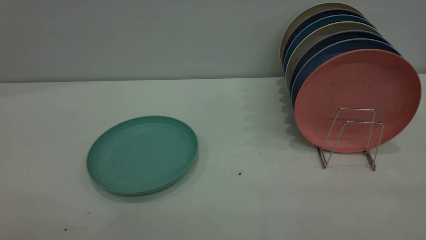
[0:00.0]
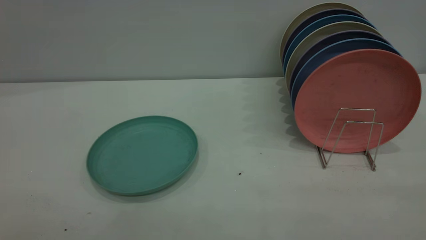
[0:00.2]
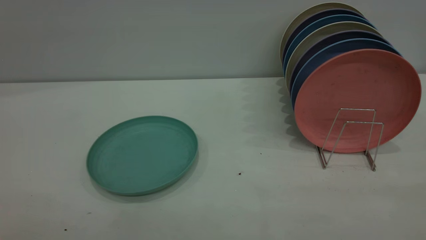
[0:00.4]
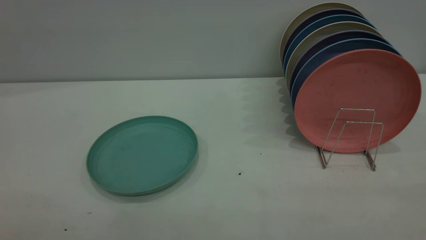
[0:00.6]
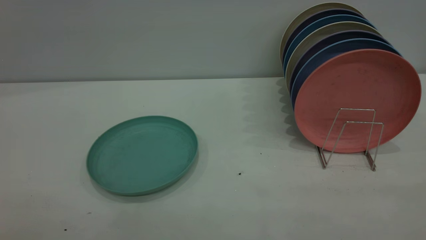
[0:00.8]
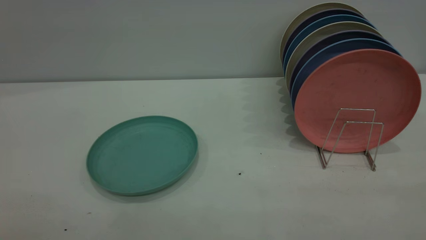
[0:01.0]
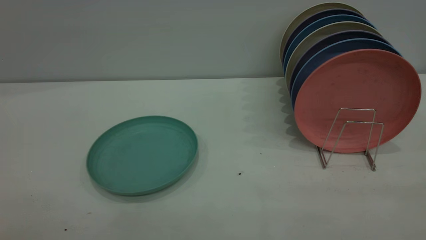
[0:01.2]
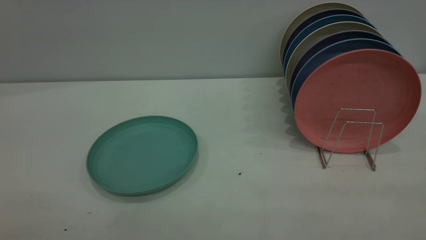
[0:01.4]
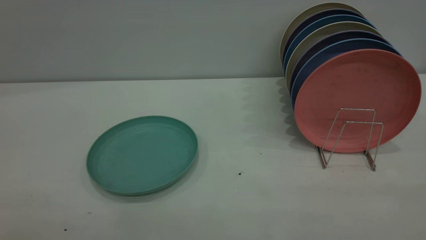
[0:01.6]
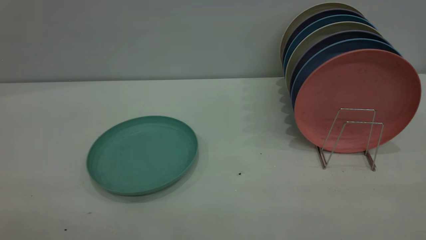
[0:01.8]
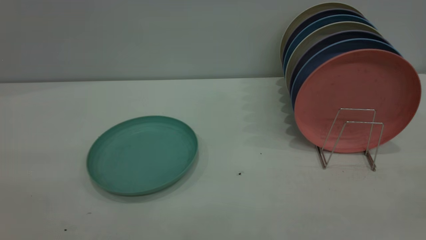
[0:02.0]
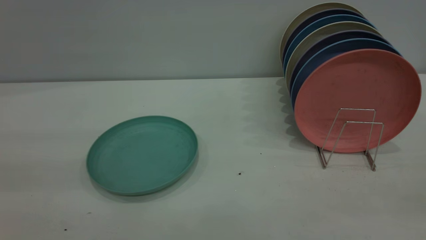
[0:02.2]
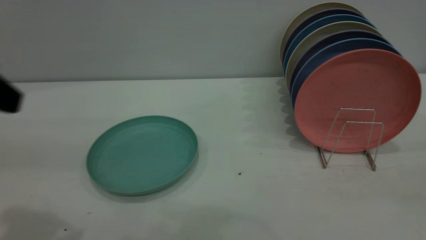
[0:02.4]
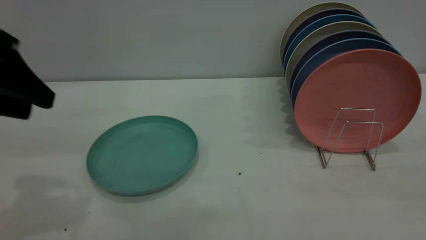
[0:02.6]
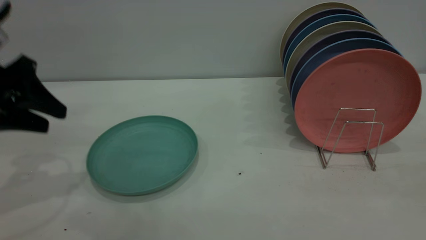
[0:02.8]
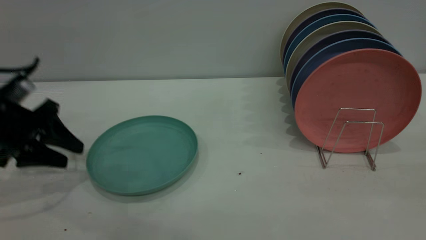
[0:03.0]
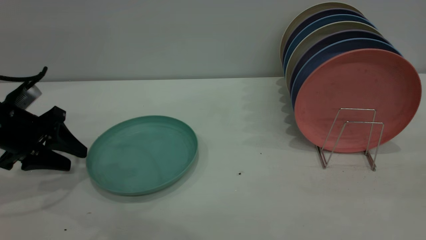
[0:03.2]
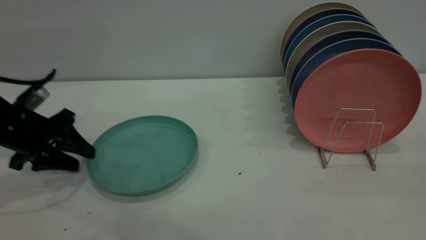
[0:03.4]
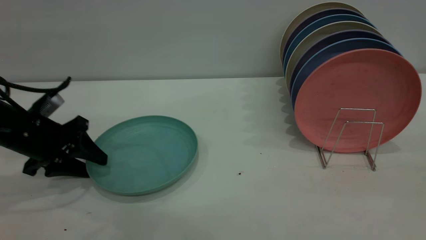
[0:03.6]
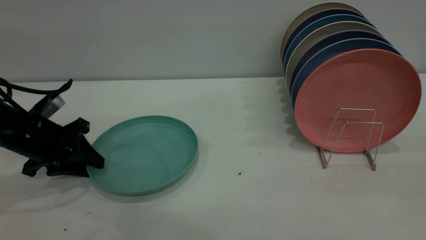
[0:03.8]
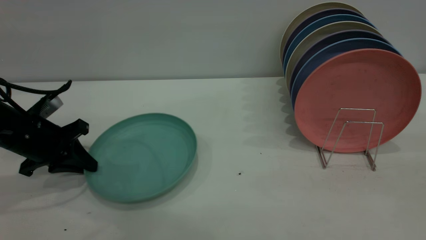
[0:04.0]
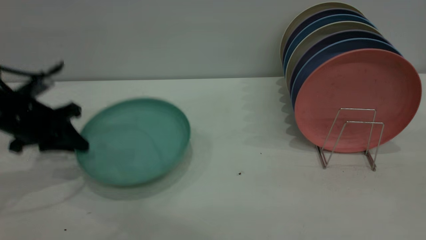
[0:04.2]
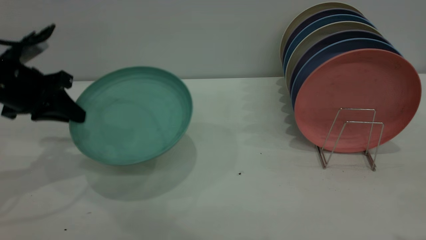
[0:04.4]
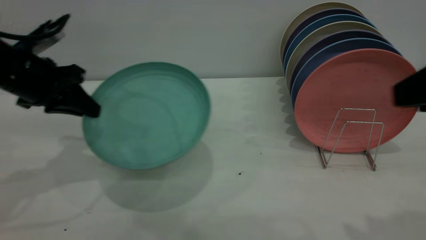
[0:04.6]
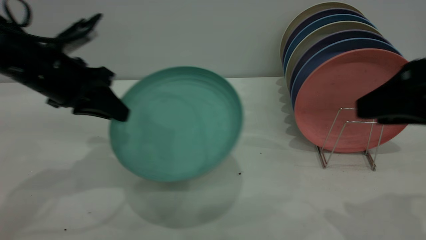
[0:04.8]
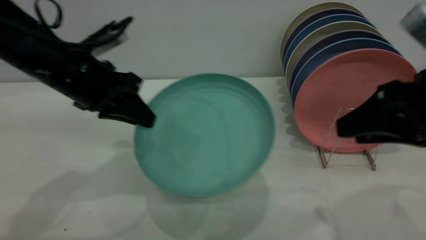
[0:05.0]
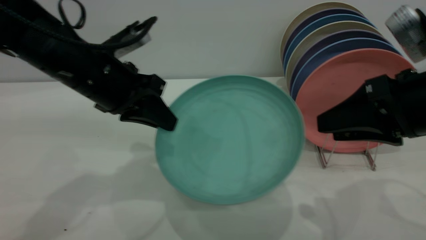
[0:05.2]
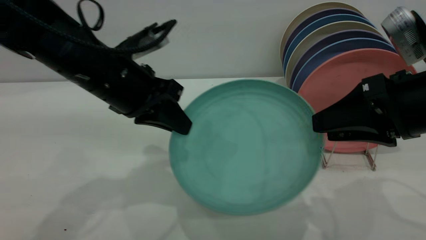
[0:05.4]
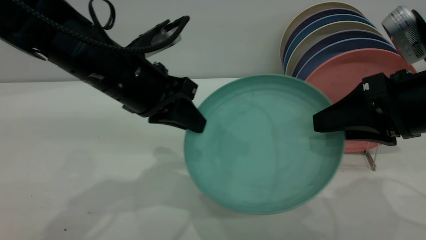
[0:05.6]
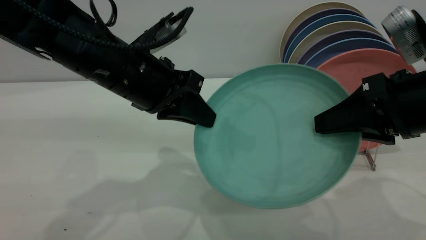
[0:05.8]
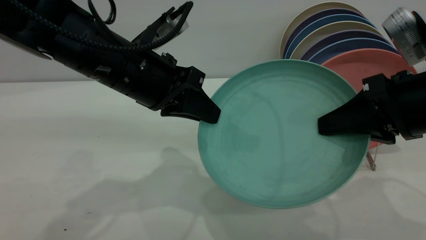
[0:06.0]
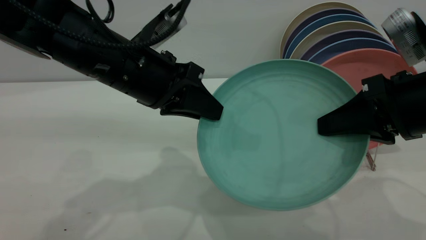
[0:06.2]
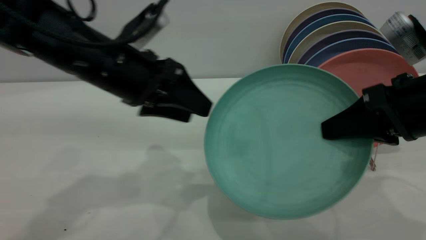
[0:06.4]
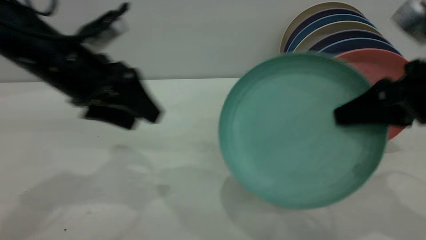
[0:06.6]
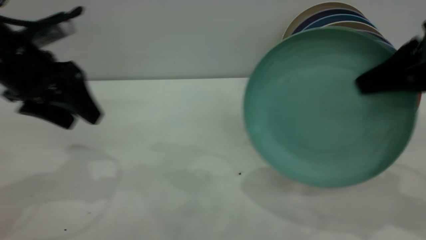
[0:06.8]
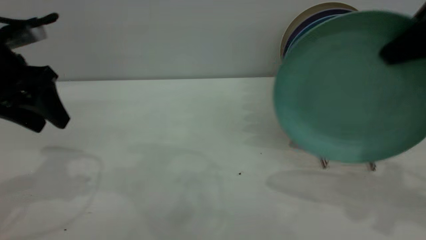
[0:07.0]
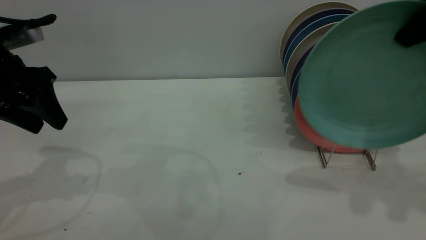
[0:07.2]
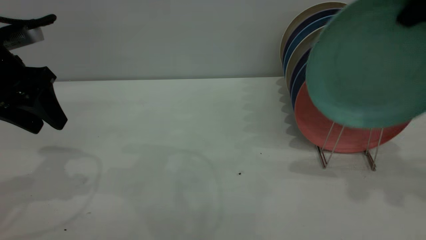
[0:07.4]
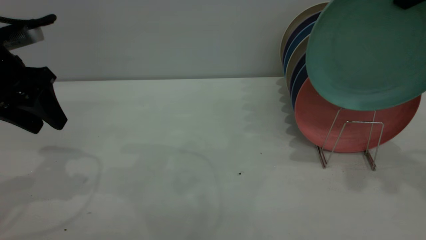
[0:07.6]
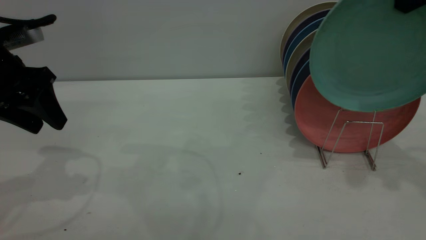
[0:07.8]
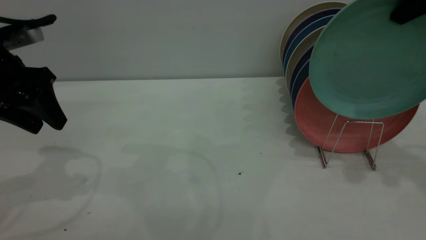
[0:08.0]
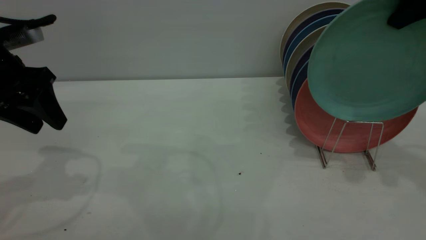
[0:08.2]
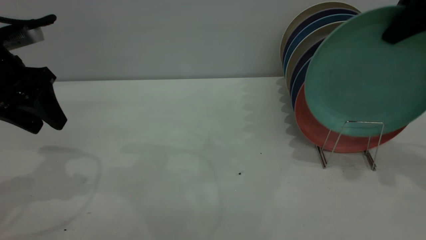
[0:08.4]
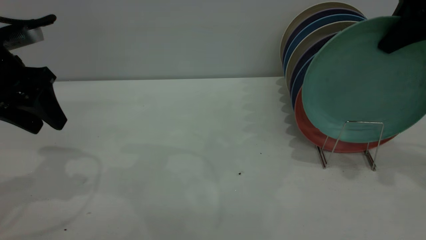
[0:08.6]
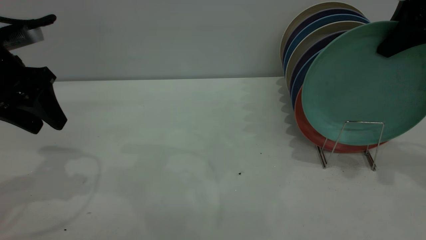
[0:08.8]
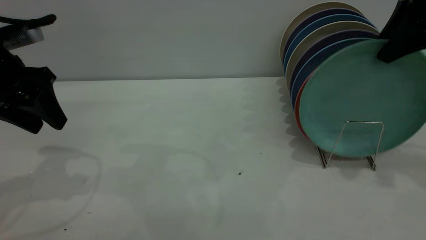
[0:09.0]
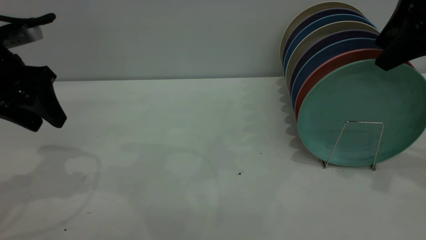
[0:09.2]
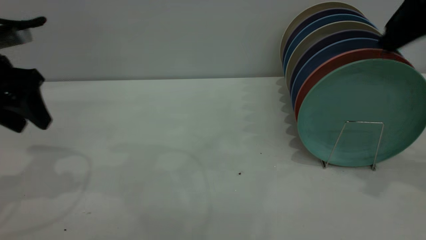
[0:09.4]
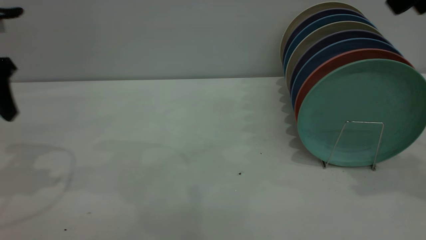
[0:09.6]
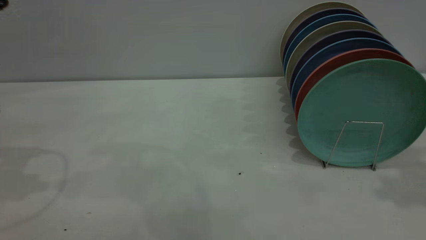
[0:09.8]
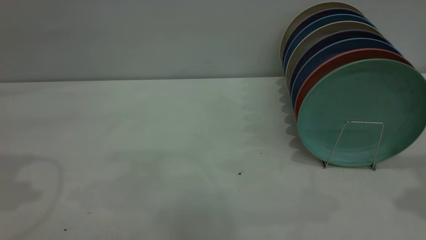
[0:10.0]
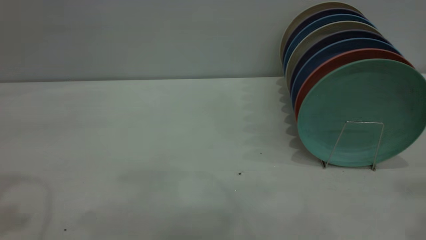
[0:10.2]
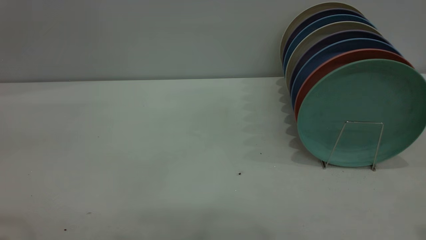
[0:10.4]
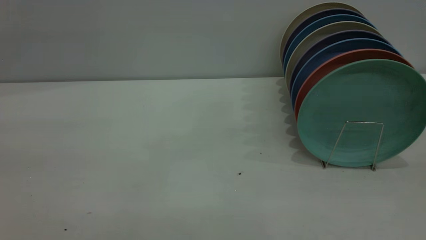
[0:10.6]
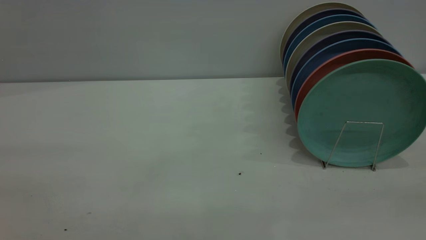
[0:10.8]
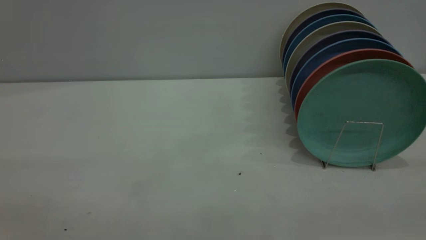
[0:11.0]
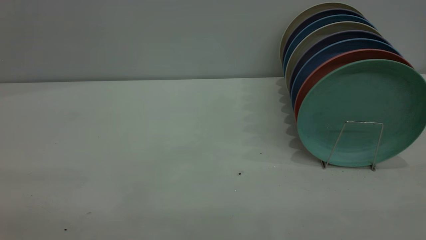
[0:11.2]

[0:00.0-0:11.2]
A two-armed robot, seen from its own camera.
Task of the whole recording: the left gripper grasp the green plate, the left gripper pass the green plate to the right gripper, and the right gripper place the green plate on the plate rack.
Step, 0.0 to 4.0 s: Pick up the plate with the left gripper.
Step, 4.4 to 6.6 s: Pass the plate from the left gripper to the right gripper.
Step, 6.8 to 9.4 s: Place the plate on the shelf.
0.0 to 1.6 s: Both grippers stay put.
1.6 to 3.2 s: The left gripper moves forward and downward, approximately 40 cm.
3.2 to 4.8 s: The left gripper goes roughly 15 cm to the right and upward, and closes. The right gripper travels forward and downward by some 20 cm.
4.8 to 6.4 s: The left gripper is displaced to the right by about 10 cm, and opens, while the right gripper changes place by some 5 cm, and closes up.
6.4 to 8.0 s: The right gripper shifts some 20 cm upward and forward. The left gripper is displaced to the left by roughly 15 cm.
8.0 to 9.6 s: The right gripper opens up; the left gripper ends up approximately 5 cm from where it was.
9.6 to 11.2 s: The left gripper goes some 35 cm backward.

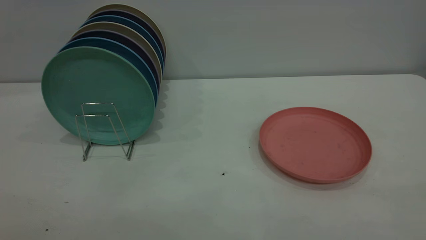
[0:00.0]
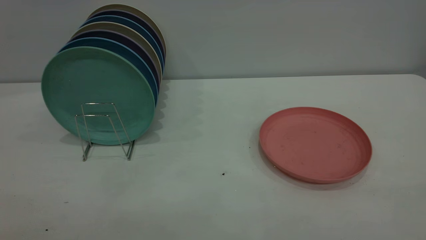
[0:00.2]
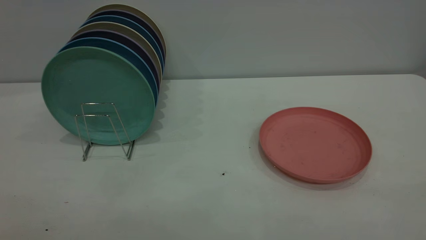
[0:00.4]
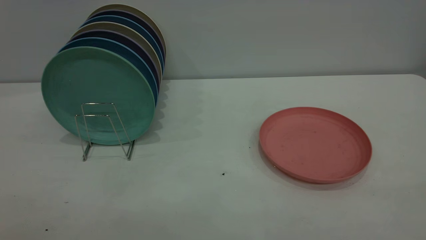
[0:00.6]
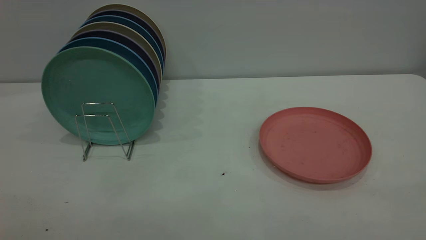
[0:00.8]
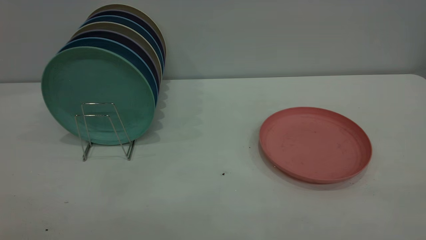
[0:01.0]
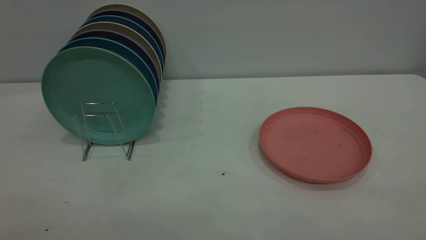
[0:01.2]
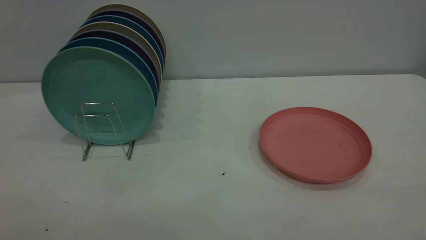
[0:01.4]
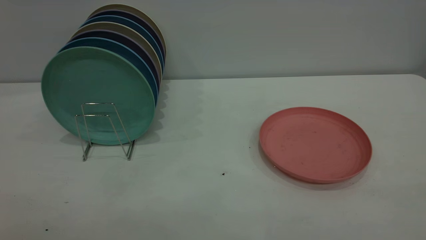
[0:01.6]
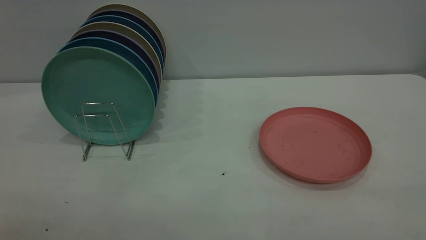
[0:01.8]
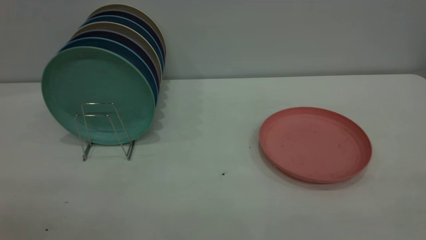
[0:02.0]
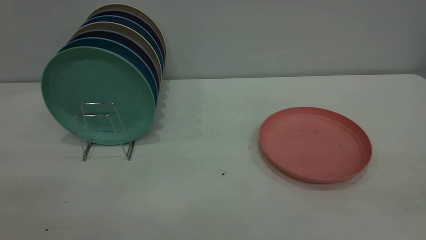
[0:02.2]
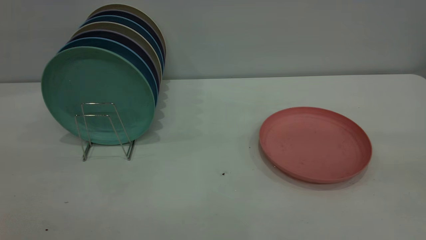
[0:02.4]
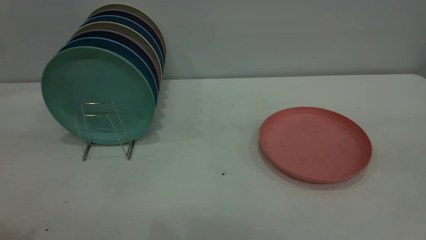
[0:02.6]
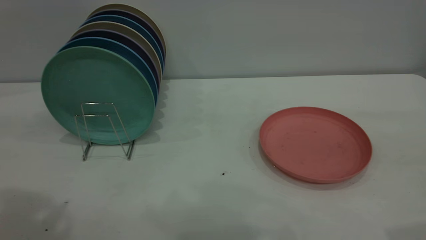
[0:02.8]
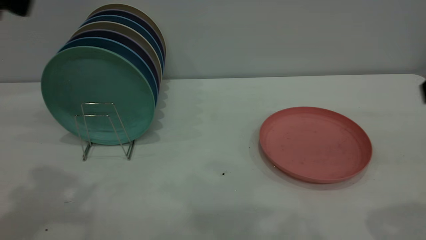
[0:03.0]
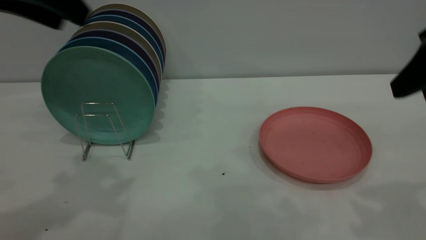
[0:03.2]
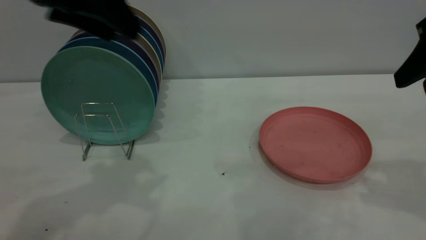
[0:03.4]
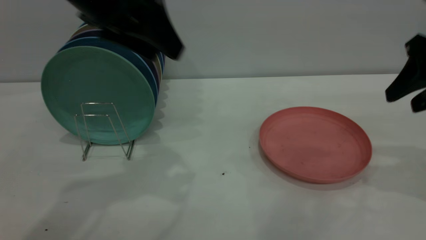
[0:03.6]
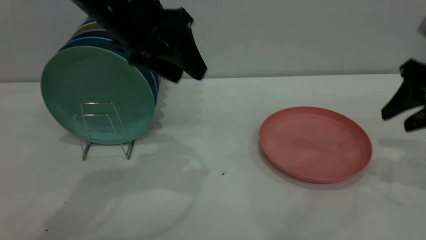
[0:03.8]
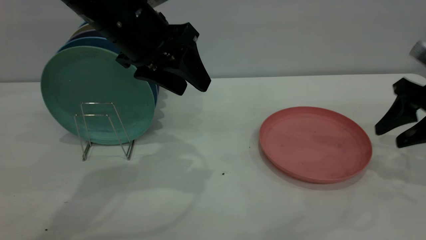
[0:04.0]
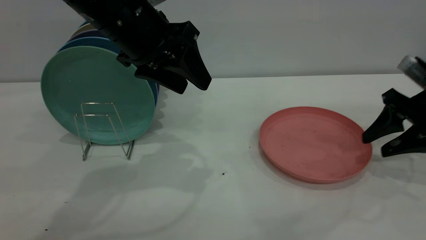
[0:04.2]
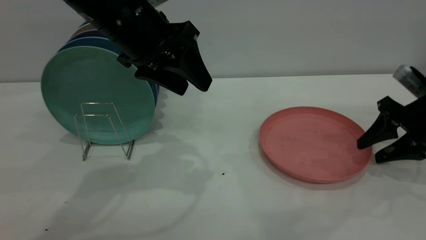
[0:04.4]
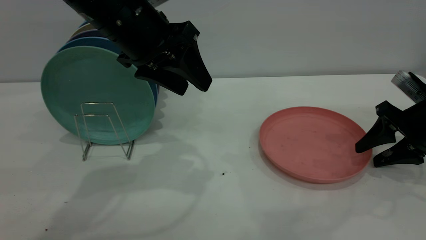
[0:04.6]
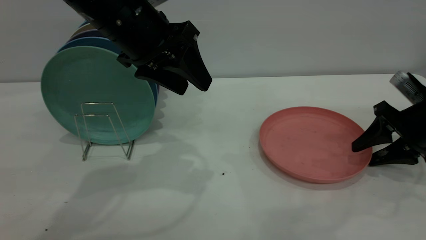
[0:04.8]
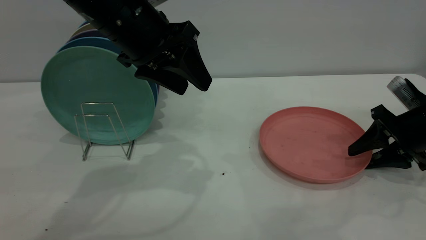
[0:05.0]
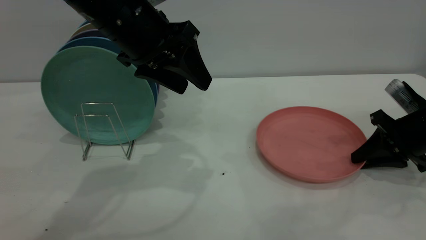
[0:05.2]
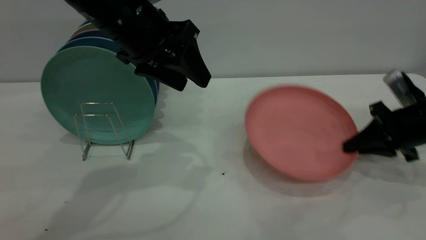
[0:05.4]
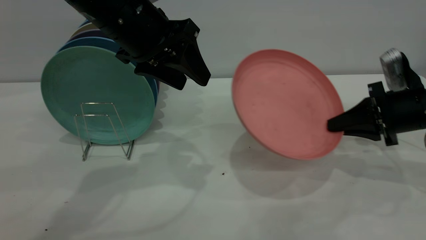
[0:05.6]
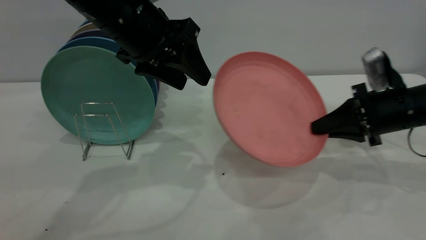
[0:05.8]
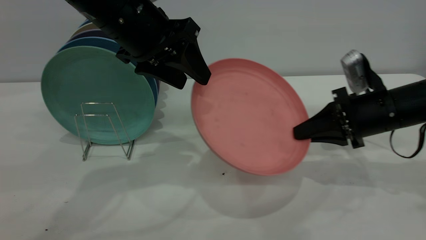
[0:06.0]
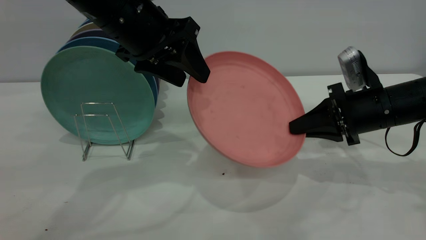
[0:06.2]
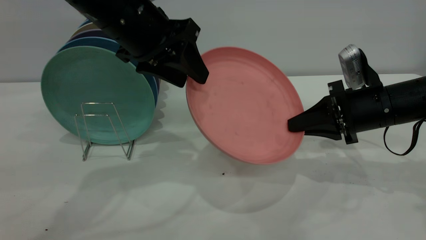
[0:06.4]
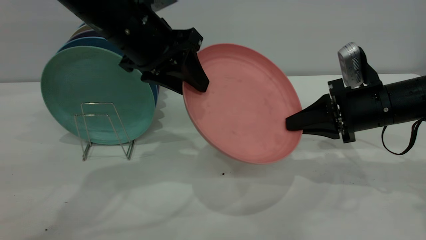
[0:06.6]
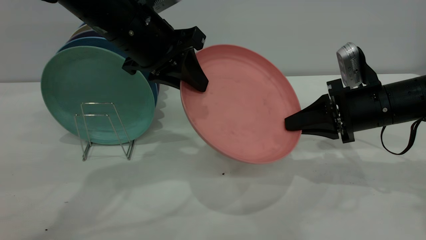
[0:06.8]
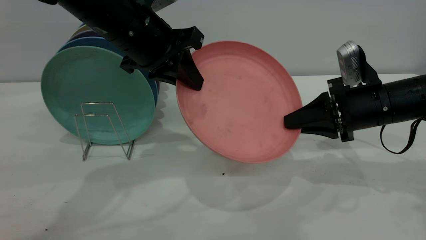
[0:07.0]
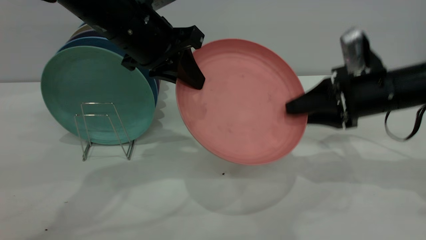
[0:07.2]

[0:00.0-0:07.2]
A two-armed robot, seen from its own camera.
Task of the whole recording: the right gripper grasp the pink plate, the right gripper pass the pink plate to the left gripper, and the left gripper place the pink plate on the plate rack.
Step, 0.0 to 5.4 s: Pick up the plate with the right gripper.
0.0 to 1.4 s: Neither gripper changes place.
2.8 to 4.4 s: The right gripper travels downward and forward by approximately 30 cm. The left gripper moves to the right, forward and downward, roughly 25 cm.
4.4 to 5.8 s: The right gripper shifts some 5 cm to the left, and closes up.
5.8 to 7.2 s: The right gripper ends up about 5 cm from where it was, and opens; the left gripper closes up.
